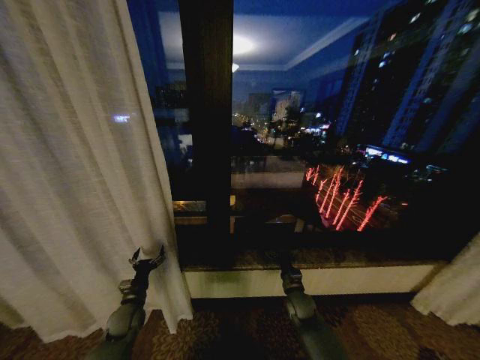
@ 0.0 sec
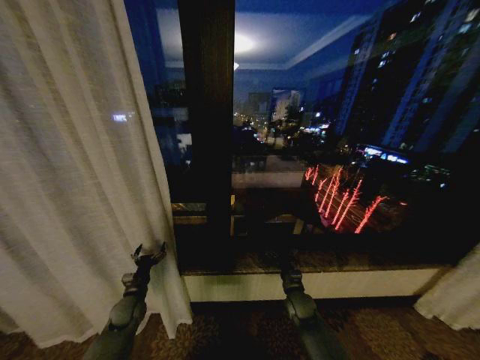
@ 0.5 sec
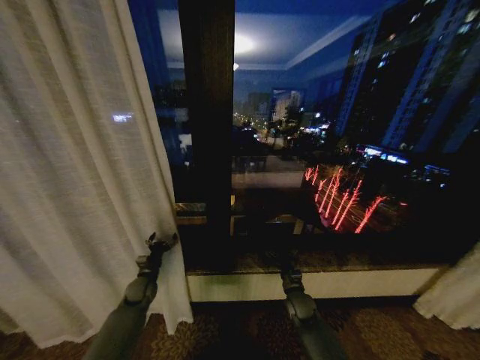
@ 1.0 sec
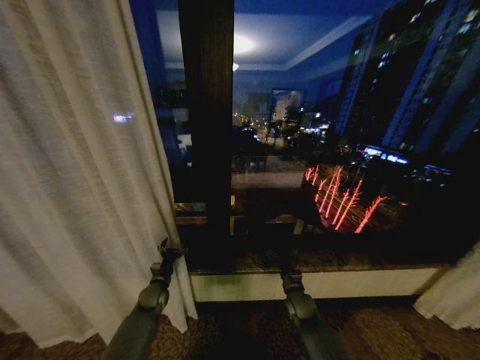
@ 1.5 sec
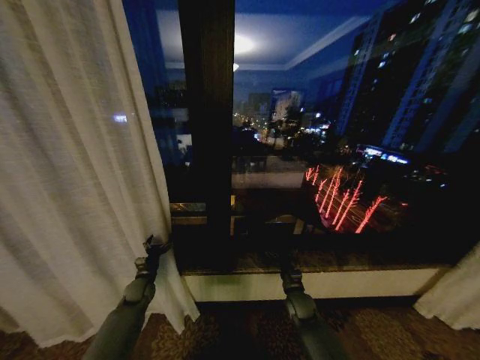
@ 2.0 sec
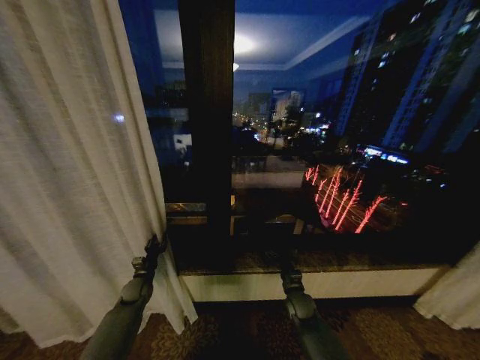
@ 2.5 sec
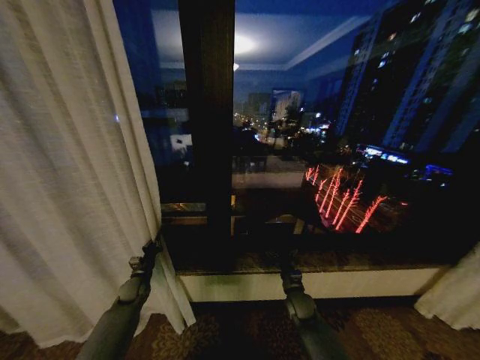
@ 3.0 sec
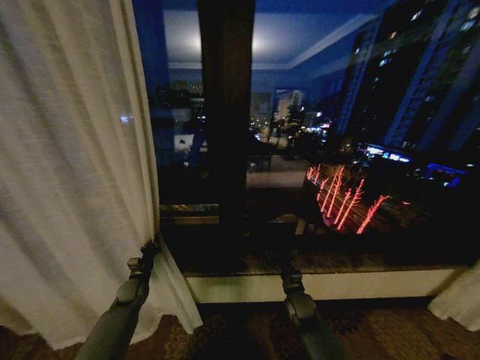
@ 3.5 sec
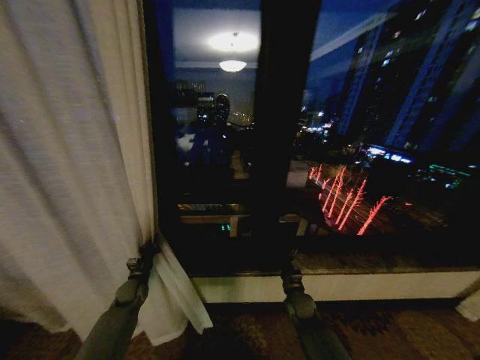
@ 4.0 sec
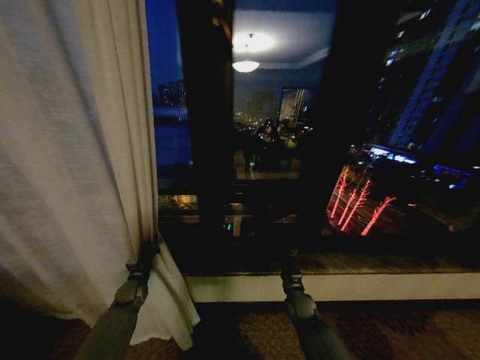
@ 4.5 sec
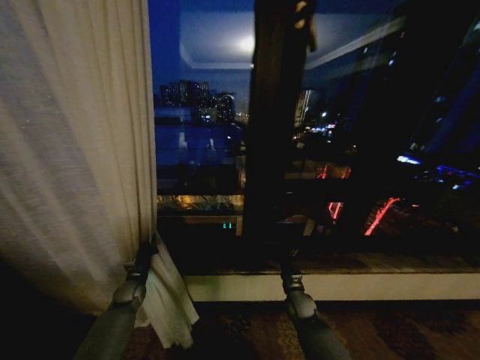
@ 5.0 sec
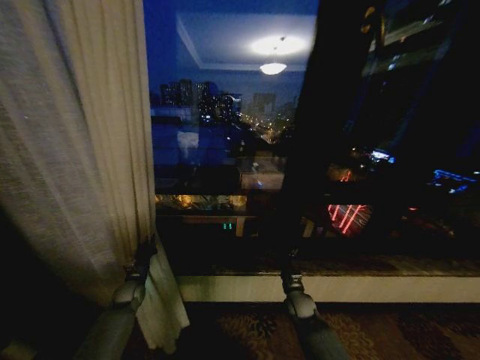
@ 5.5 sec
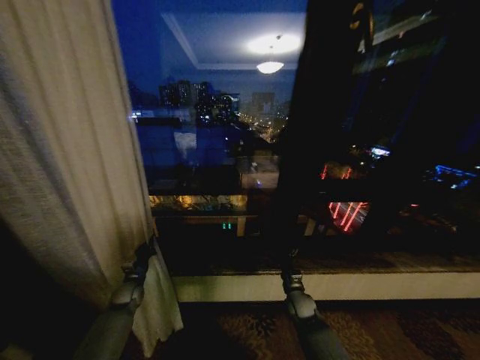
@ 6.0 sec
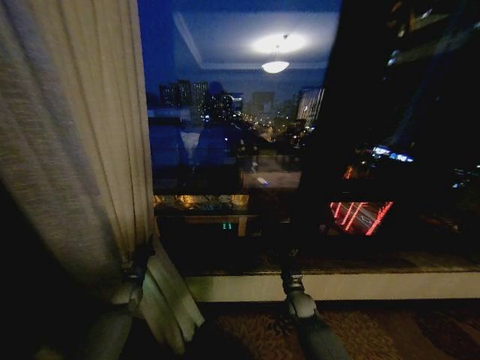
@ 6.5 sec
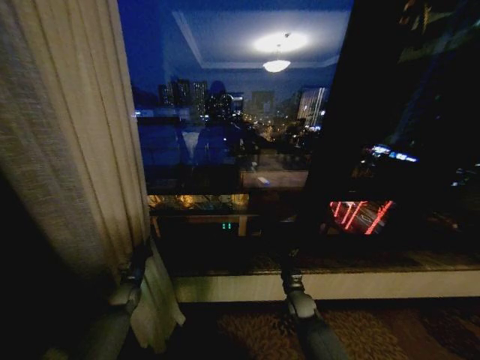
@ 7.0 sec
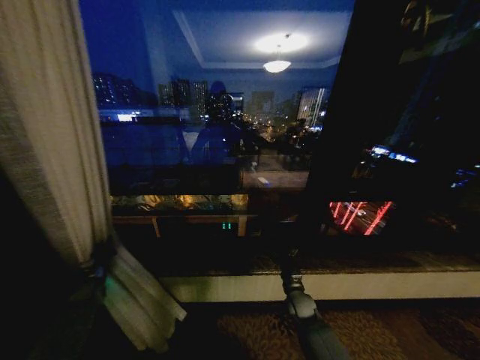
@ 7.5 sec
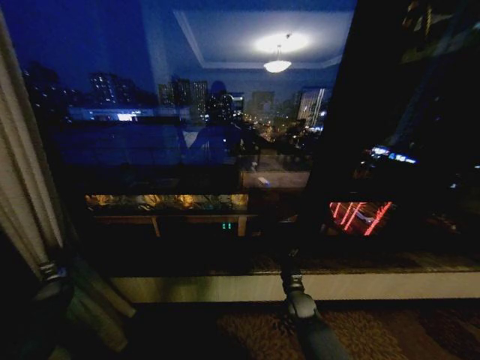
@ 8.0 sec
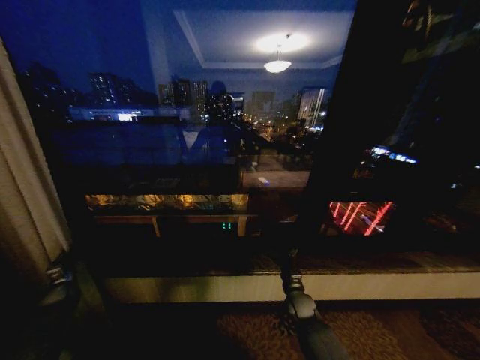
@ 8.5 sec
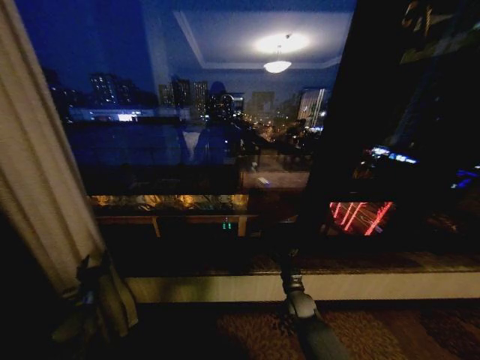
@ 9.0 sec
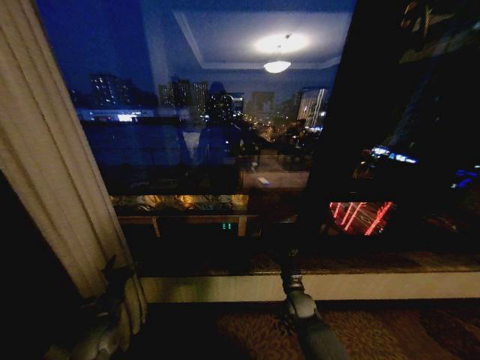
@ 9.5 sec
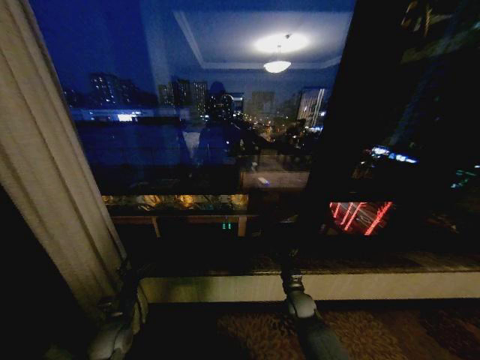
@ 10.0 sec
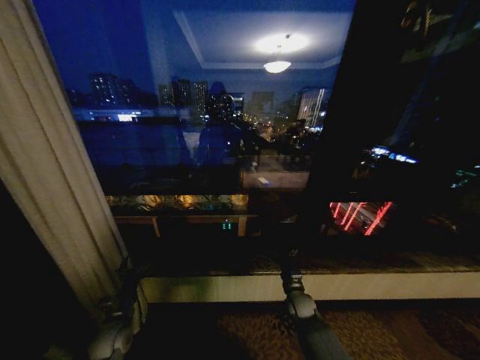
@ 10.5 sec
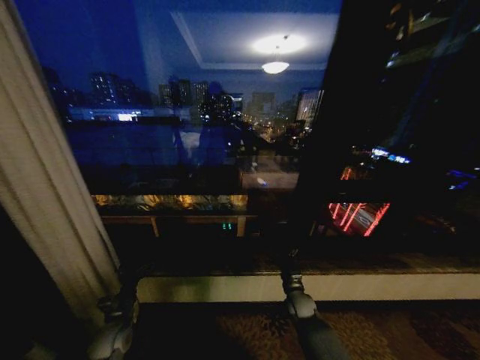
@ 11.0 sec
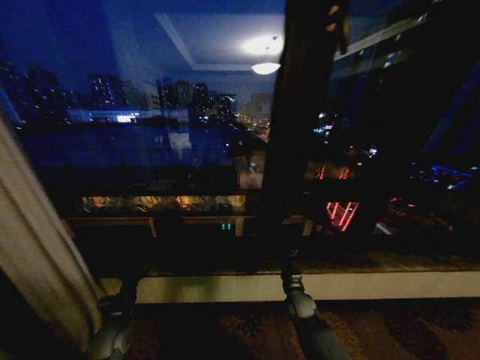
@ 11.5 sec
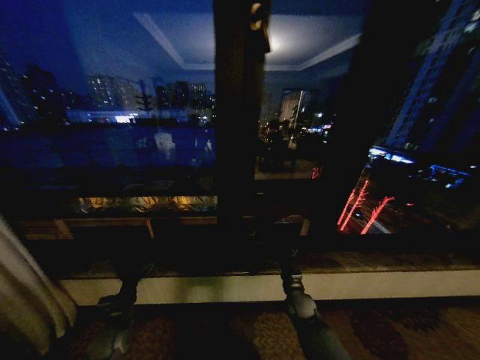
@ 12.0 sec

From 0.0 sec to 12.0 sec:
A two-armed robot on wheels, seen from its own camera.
Task of the whole recording: Open the curtains by pulling them apart, changing their state from closed to fully open.
From 0.0 sec to 2.0 sec: The left gripper shifts about 10 cm forward.
From 2.0 sec to 4.0 sec: The left gripper closes.
From 6.0 sec to 8.0 sec: The left gripper moves to the left, about 25 cm.
From 8.0 sec to 10.0 sec: The left gripper is displaced to the right and backward by about 30 cm, and opens up.

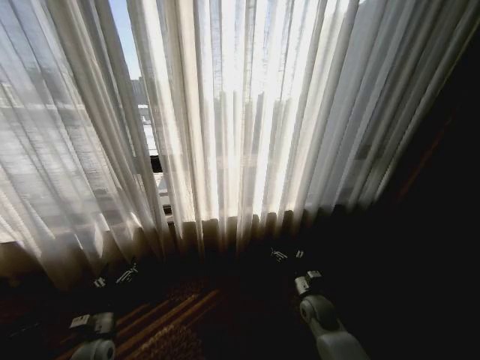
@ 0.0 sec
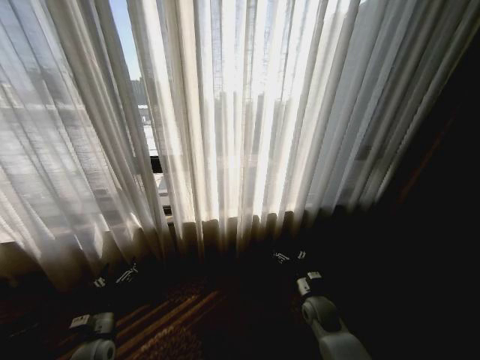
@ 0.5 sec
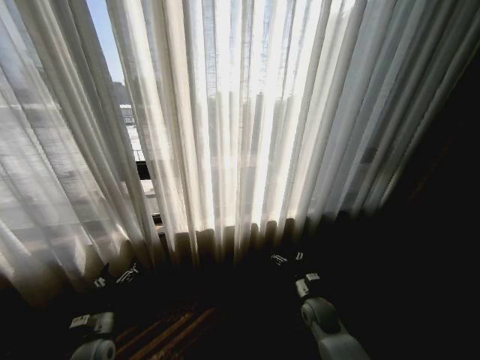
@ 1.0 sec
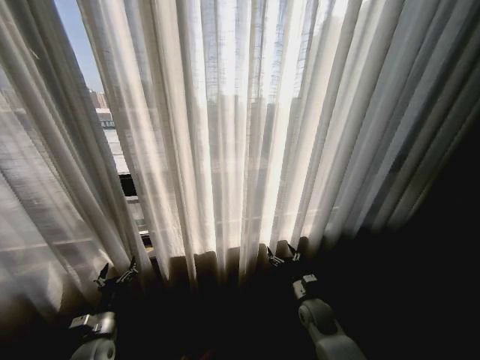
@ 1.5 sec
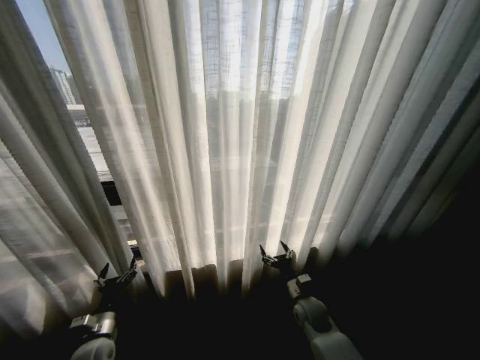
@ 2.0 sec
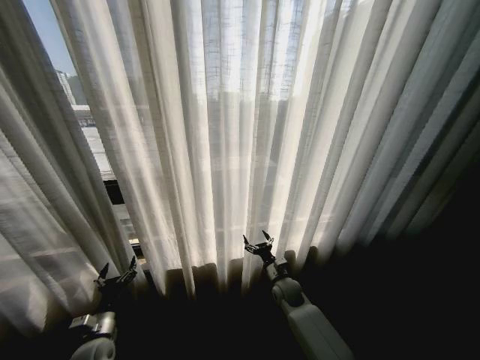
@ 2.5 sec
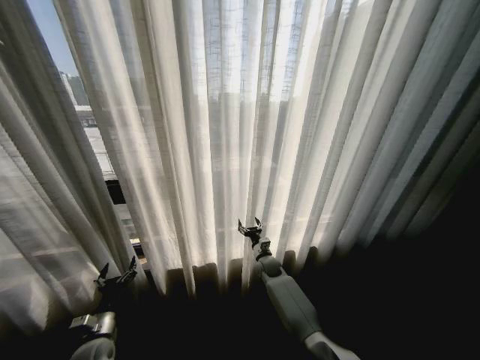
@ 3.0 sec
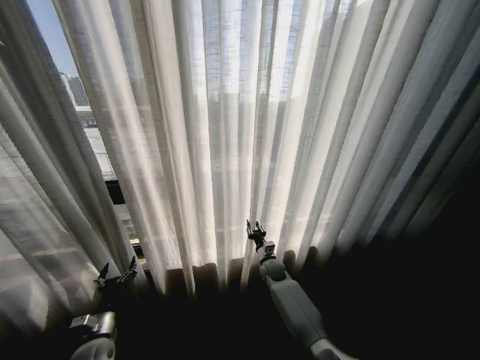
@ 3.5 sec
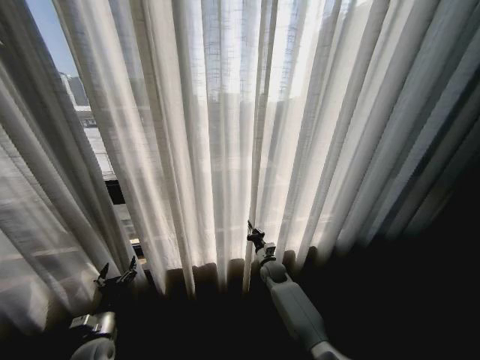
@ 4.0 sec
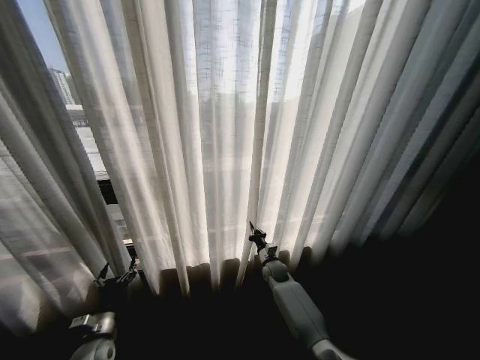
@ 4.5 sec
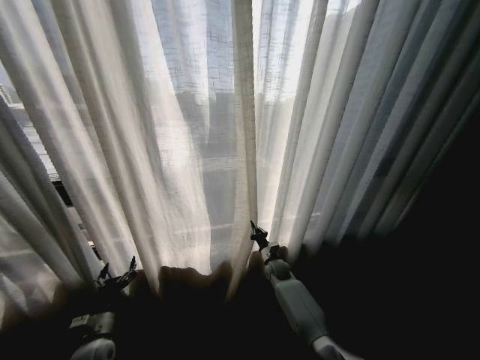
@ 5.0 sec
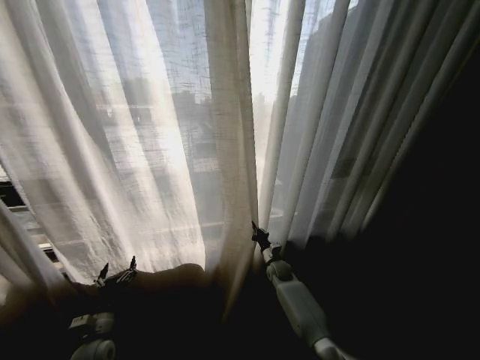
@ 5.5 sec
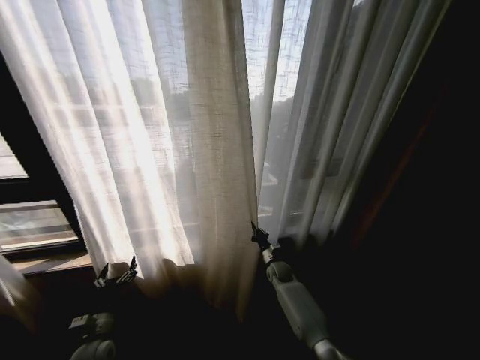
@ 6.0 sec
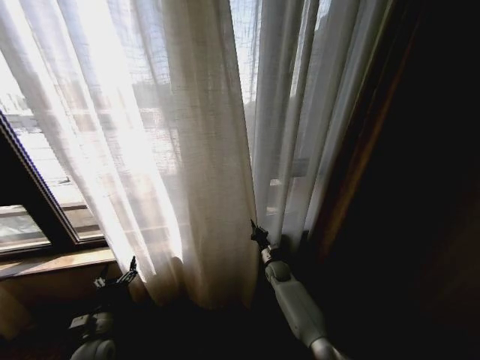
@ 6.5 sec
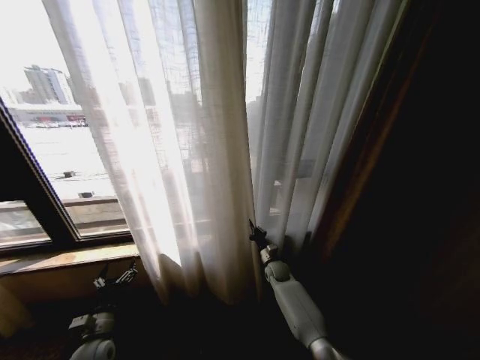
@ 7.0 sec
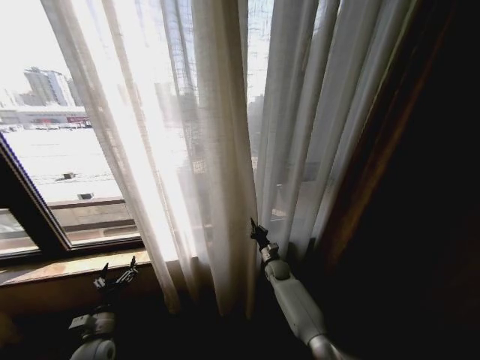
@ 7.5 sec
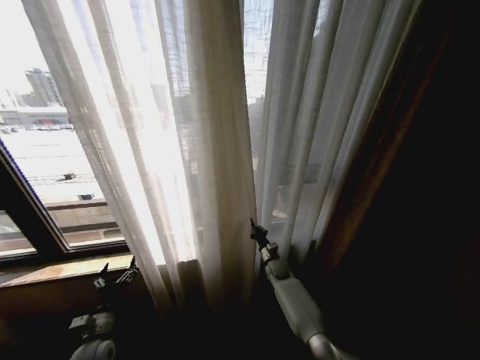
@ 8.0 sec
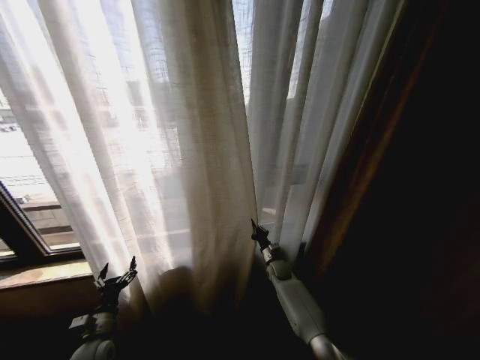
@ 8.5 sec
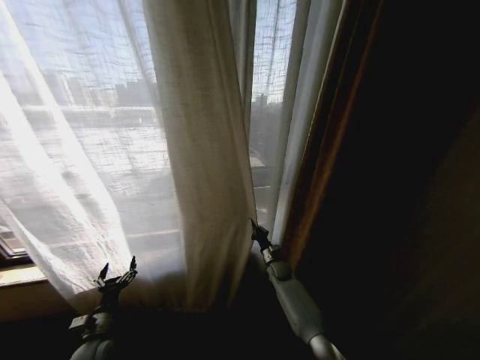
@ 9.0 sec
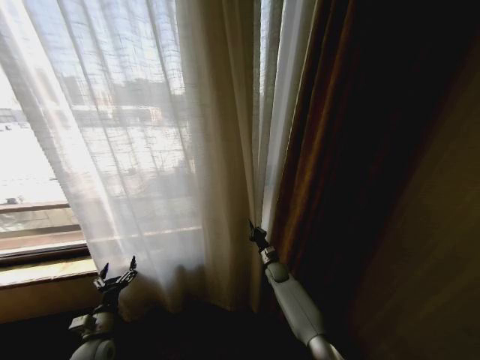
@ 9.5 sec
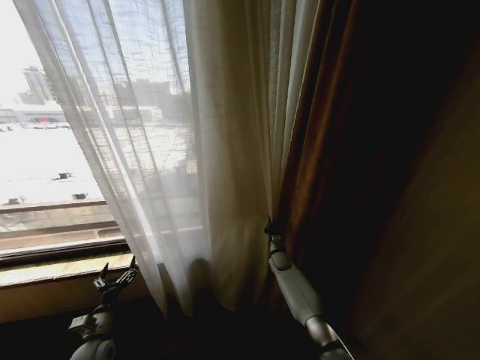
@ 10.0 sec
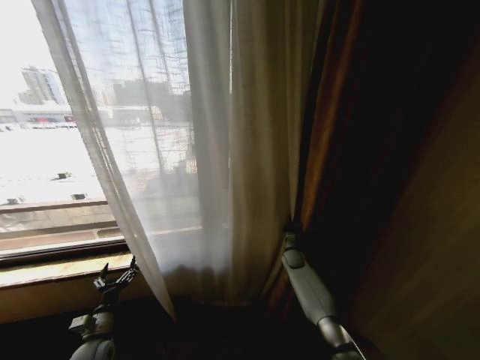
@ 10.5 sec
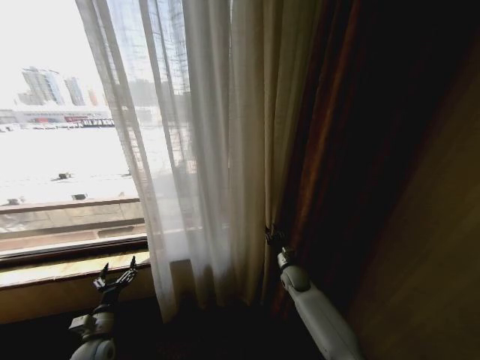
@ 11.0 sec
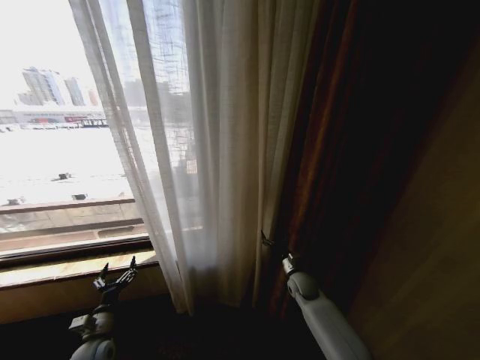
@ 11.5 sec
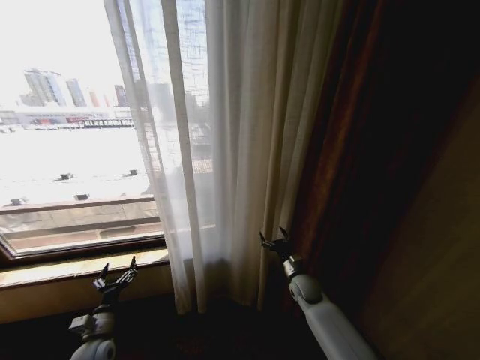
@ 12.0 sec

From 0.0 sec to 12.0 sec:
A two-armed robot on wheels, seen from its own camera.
Task of the whole recording: Open the curtains by pulling them apart, changing their state from closed to fully open.
From 2.0 sec to 4.0 sec: The right gripper shifts about 15 cm forward and to the left, and closes up.
From 10.0 sec to 12.0 sec: The right gripper goes about 15 cm backward, and opens.

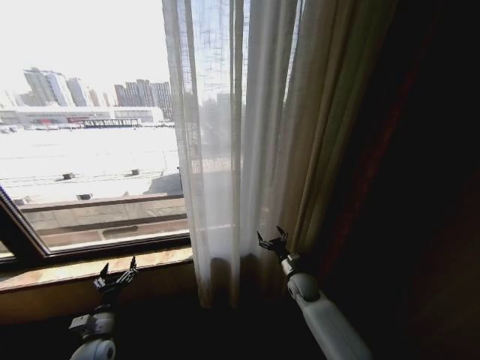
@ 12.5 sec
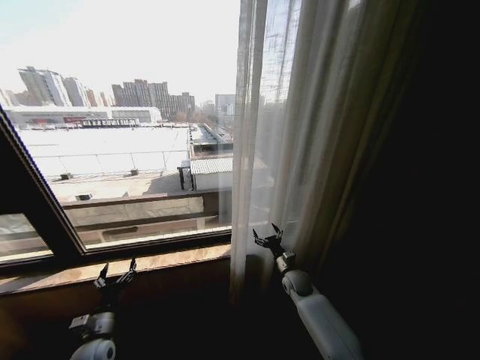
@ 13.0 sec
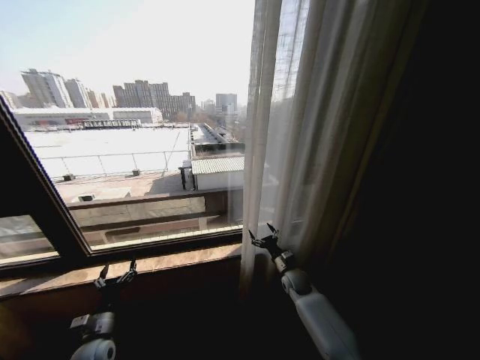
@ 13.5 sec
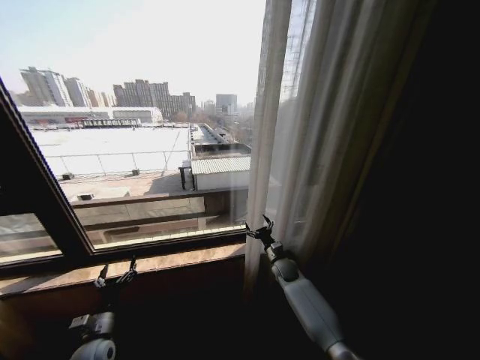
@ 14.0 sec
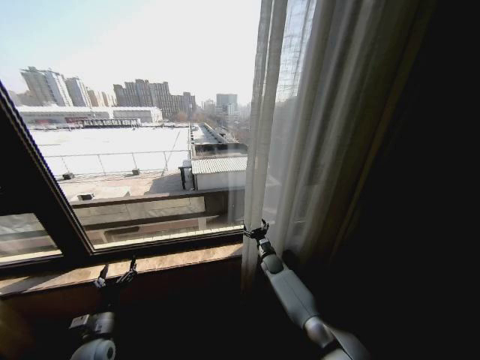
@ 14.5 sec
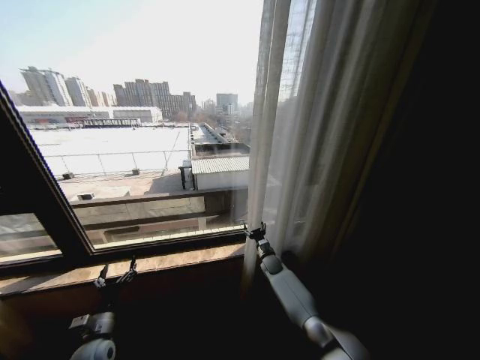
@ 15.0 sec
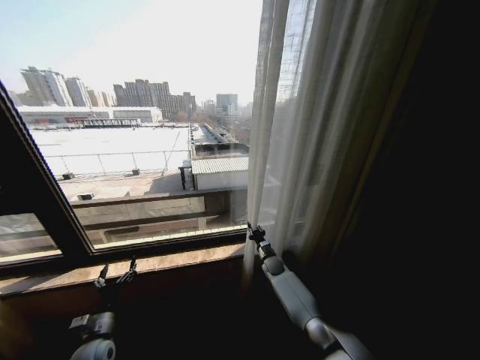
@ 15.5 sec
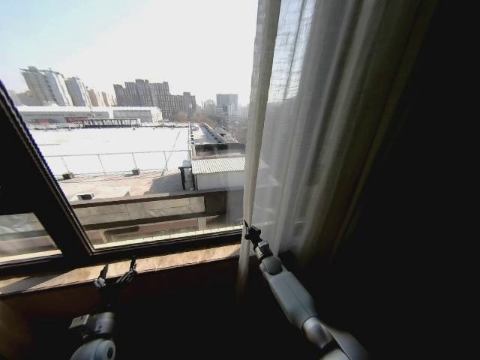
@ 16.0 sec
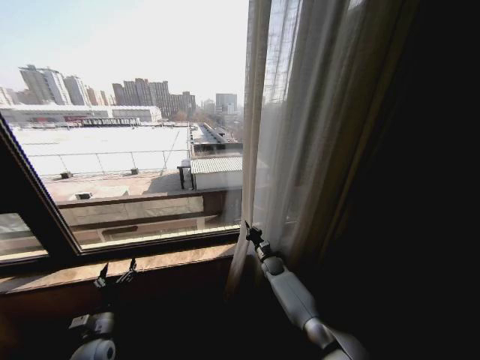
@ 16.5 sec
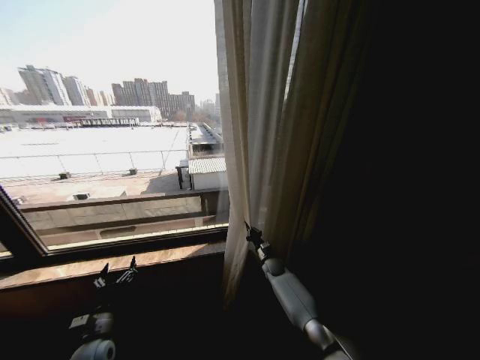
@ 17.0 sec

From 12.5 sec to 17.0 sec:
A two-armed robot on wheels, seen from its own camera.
Task of the whole recording: Open the curtains by pulling them apart, changing their state from closed to fully open.
From 12.5 sec to 14.5 sec: The right gripper travels forward and to the left by about 15 cm.
From 14.5 sec to 17.0 sec: The right gripper closes its fingers.
